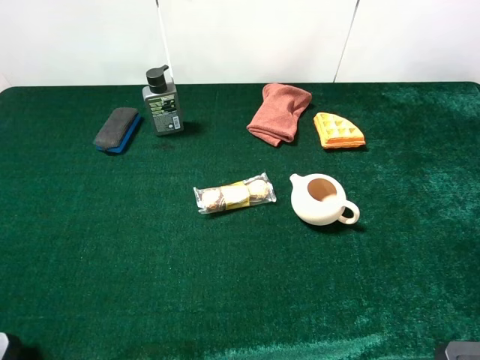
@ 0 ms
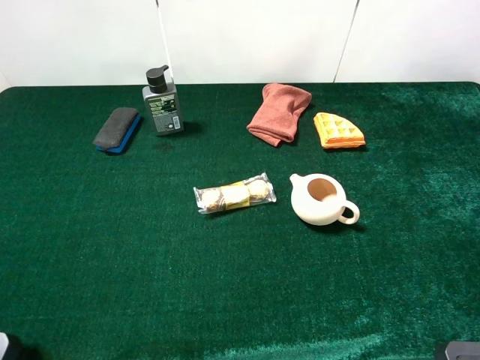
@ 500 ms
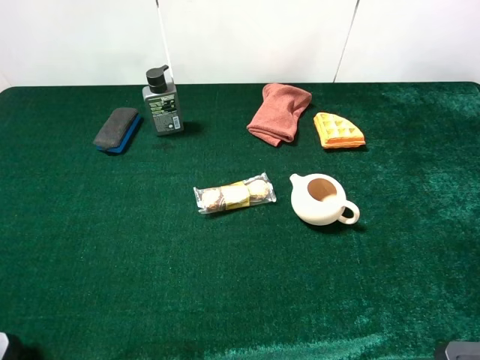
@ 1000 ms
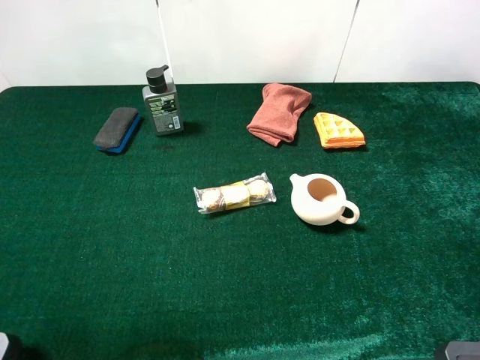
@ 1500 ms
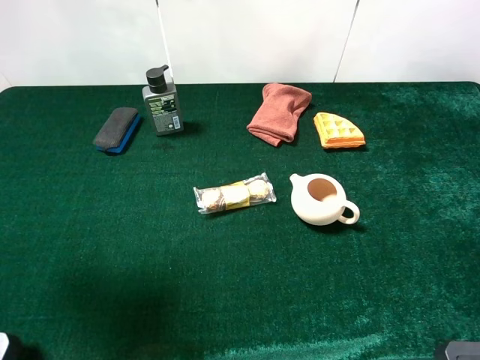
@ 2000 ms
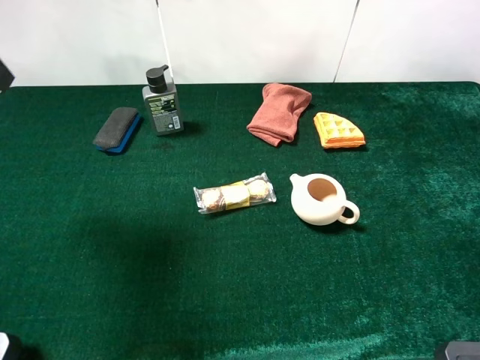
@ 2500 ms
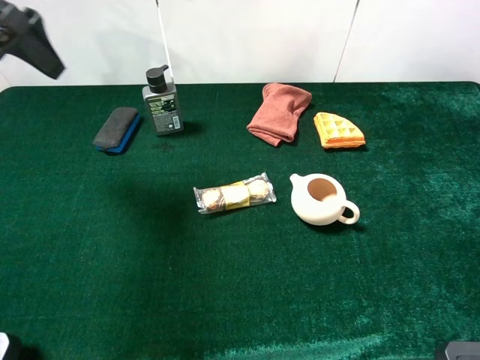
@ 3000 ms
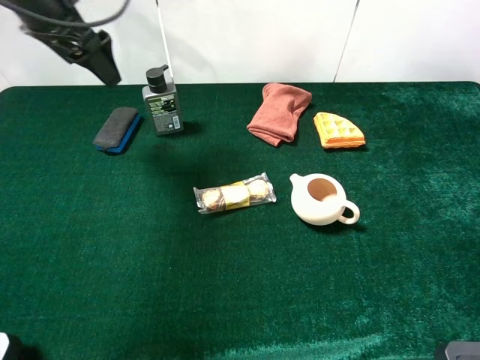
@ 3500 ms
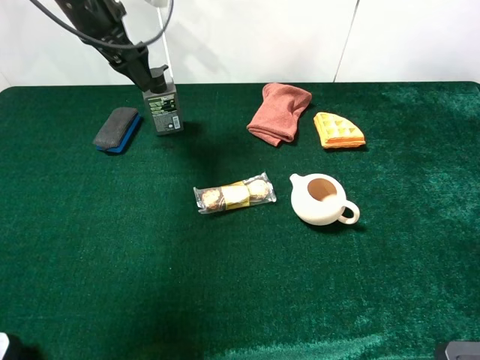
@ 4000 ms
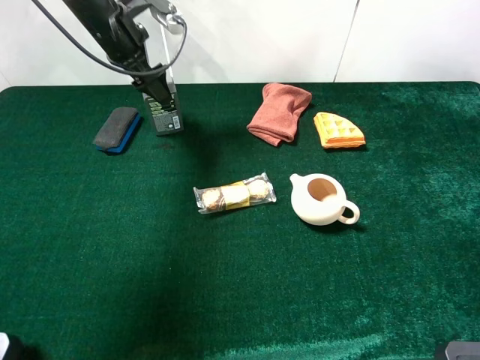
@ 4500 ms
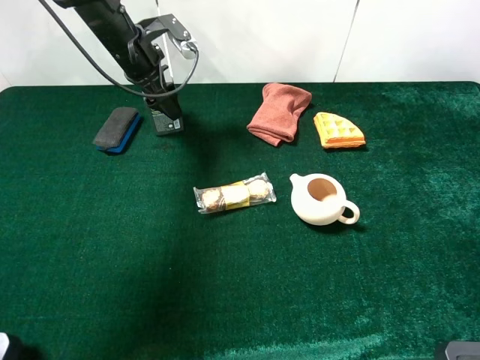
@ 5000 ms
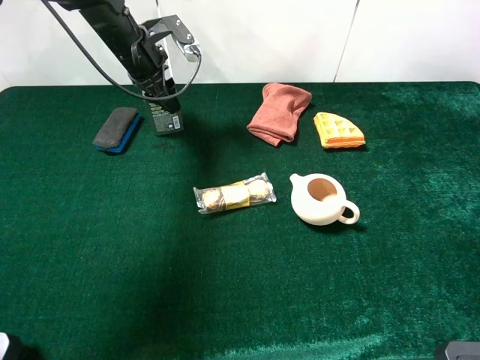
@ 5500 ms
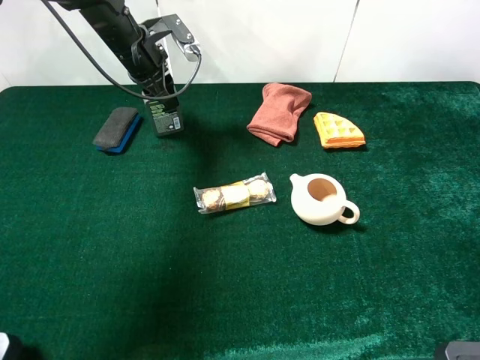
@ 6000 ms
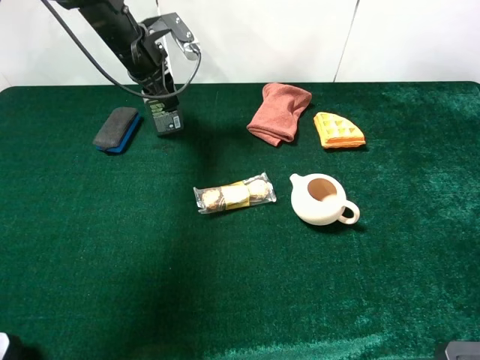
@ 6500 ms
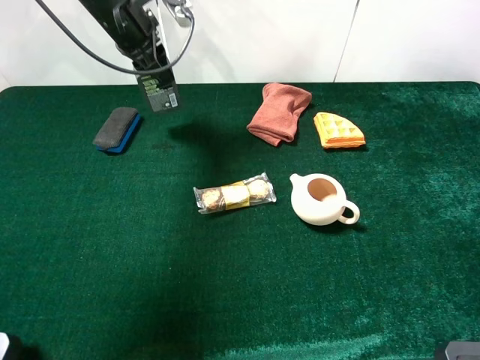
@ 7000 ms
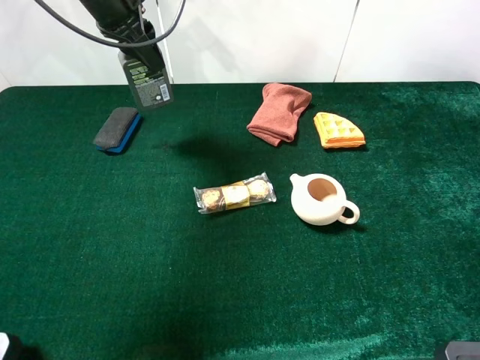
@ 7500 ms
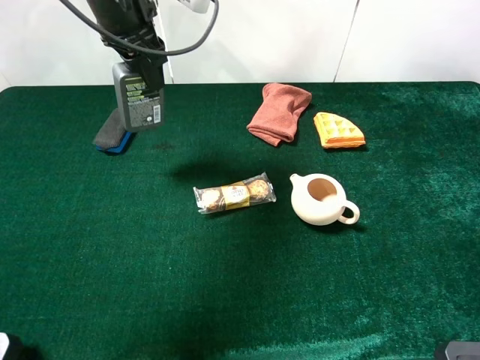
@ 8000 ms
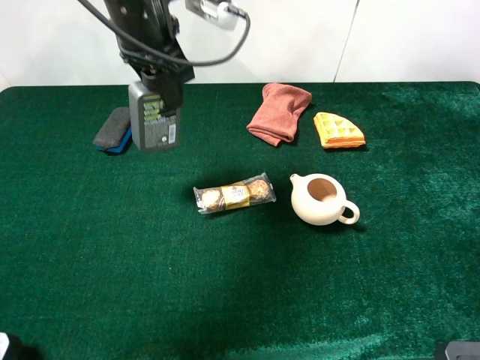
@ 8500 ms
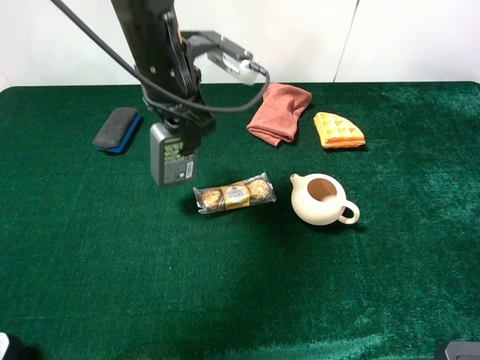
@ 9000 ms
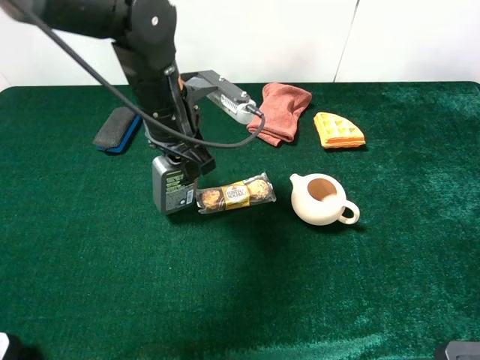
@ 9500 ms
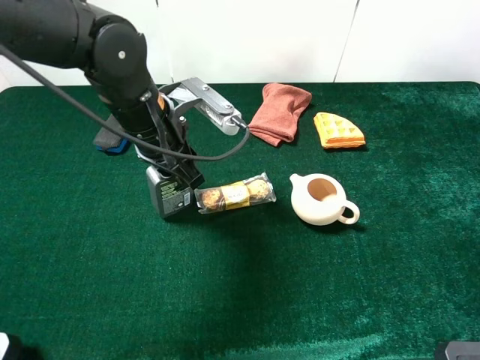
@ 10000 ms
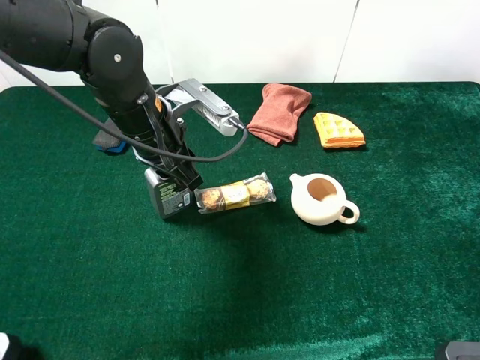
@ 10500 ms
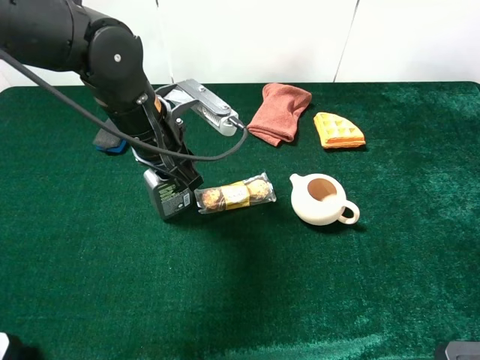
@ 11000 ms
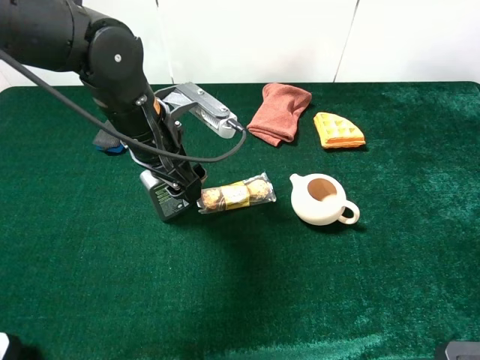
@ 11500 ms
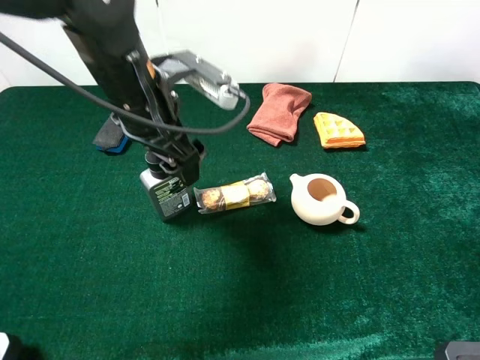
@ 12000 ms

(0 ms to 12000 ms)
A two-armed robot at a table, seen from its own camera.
Task of the whole recording: the gripper move the object.
Step, 0 ms - 6000 ms: Grasp the hard facial cleanser with the left gripper.
Step, 6500 ms - 12000 ms: Place the hard blackbaord cleanser on the table with the left gripper.
0 ms - 2000 ms: The left gripper moves forward, some 15 cm.
2000 ms - 4000 ms: The left gripper goes about 25 cm forward.
4000 ms - 6000 ms: The left gripper is displaced downward by some 10 cm, and closes.
6000 ms - 8000 ms: The left gripper goes roughly 15 cm upward and backward.
8000 ms - 10000 ms: The left gripper goes some 15 cm downward and backward.
10000 ms - 12000 ms: The left gripper opens its fingers.

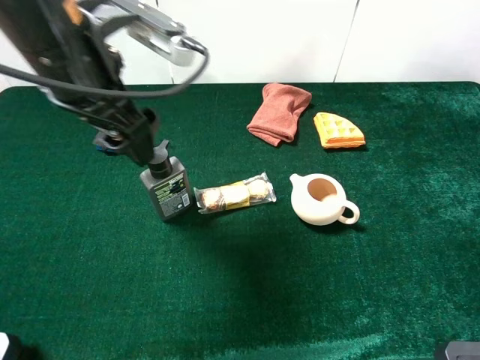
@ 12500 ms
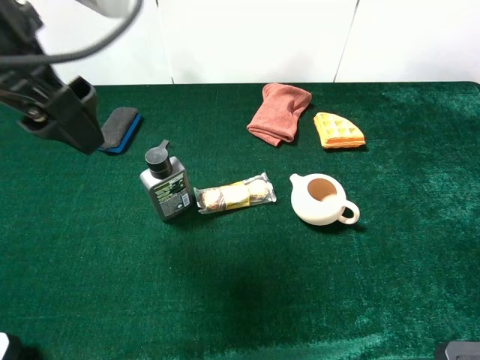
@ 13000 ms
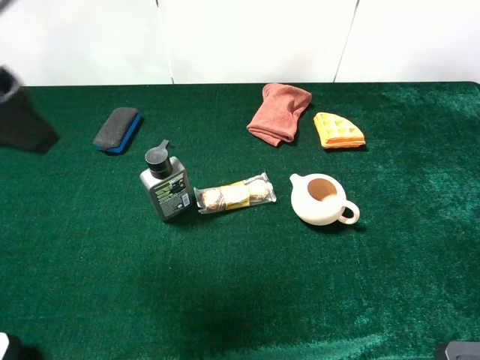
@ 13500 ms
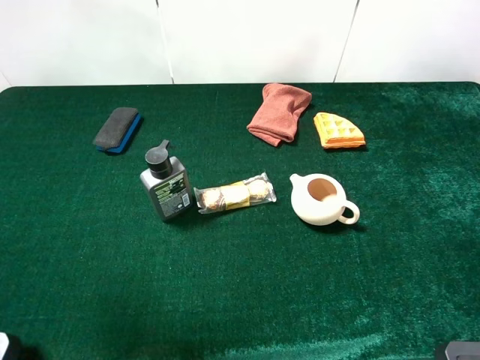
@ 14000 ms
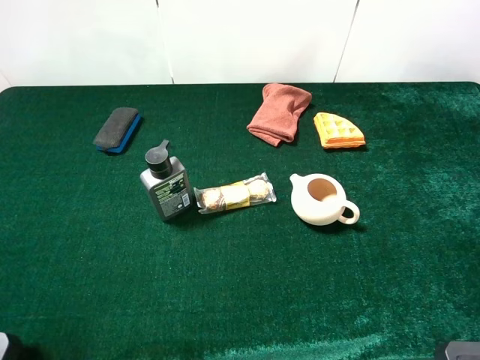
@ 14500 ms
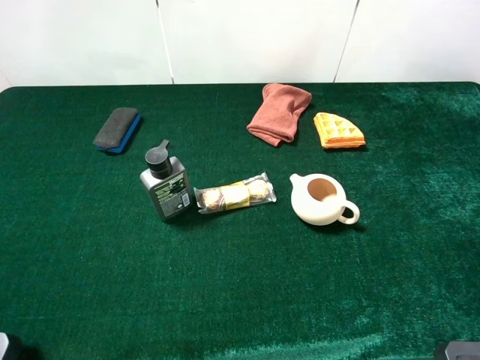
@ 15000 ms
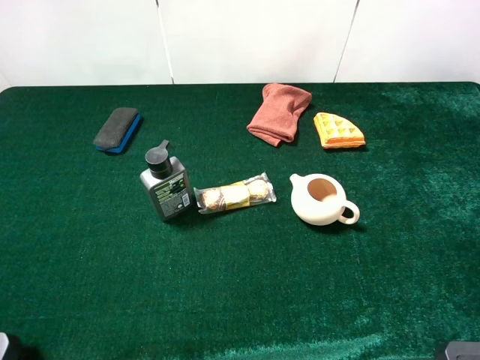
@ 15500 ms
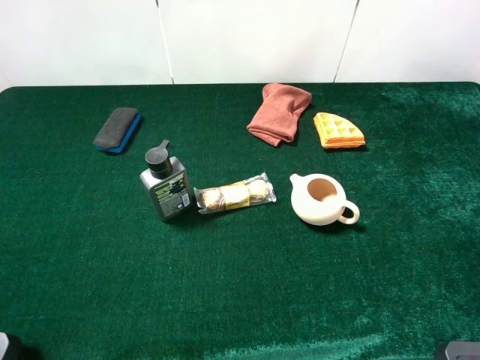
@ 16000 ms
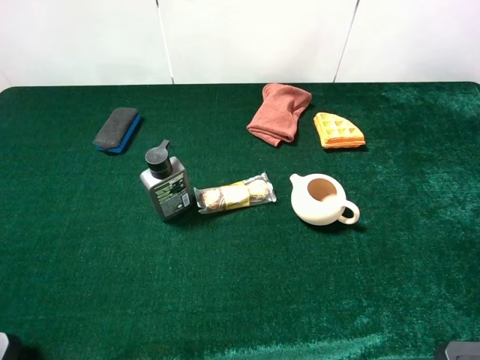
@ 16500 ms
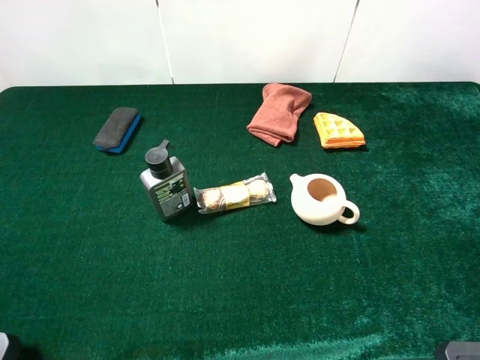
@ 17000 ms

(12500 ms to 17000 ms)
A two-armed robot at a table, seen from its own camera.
Task of the whole recording: the gripper move the object.
12500 ms - 14500 ms: The left gripper is displaced backward and to the left by approximately 25 cm.
